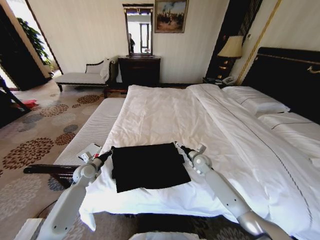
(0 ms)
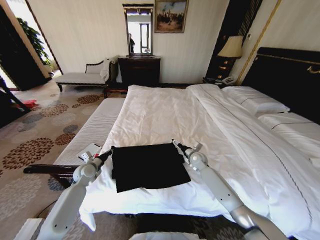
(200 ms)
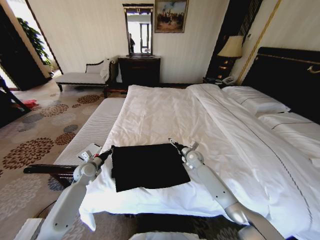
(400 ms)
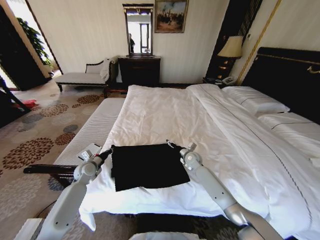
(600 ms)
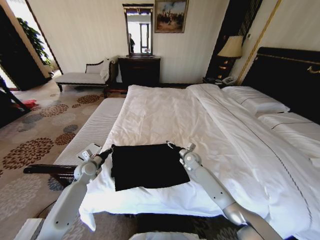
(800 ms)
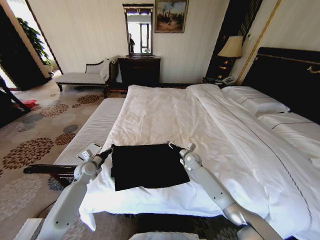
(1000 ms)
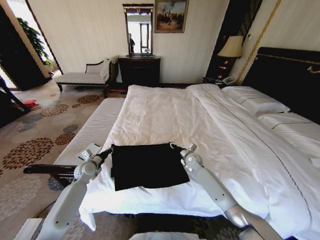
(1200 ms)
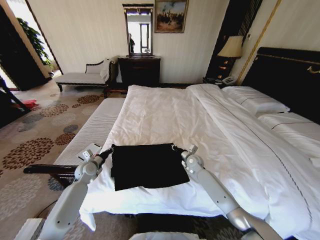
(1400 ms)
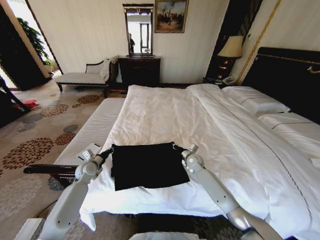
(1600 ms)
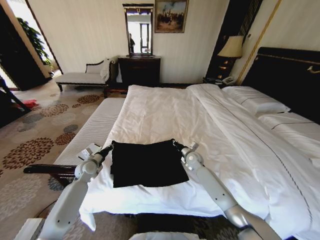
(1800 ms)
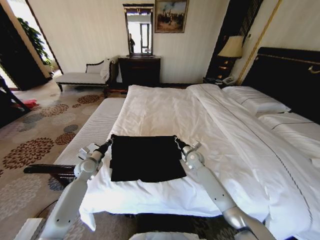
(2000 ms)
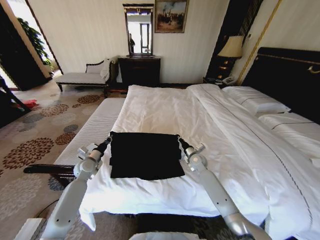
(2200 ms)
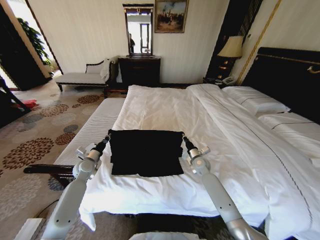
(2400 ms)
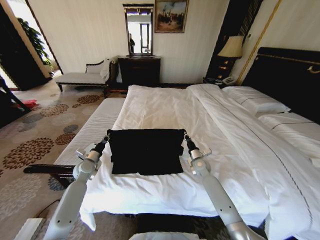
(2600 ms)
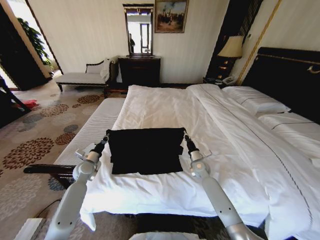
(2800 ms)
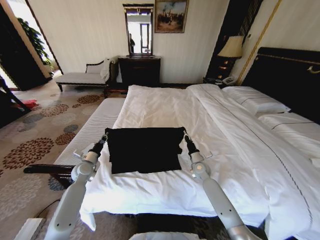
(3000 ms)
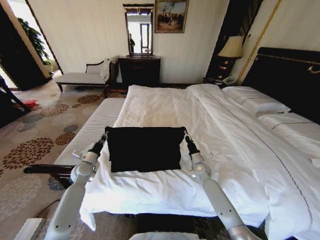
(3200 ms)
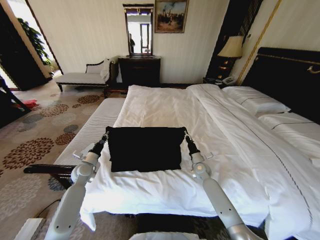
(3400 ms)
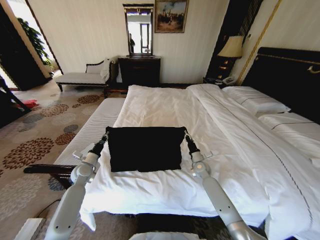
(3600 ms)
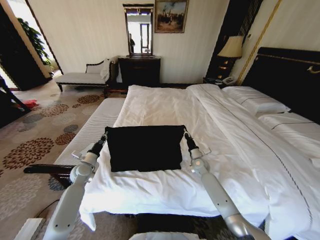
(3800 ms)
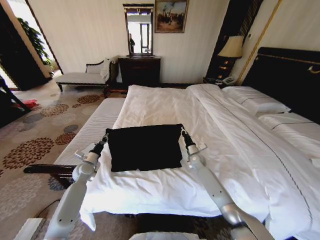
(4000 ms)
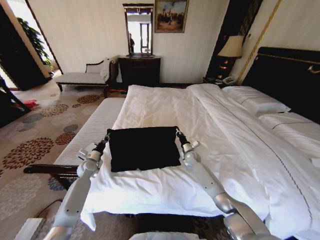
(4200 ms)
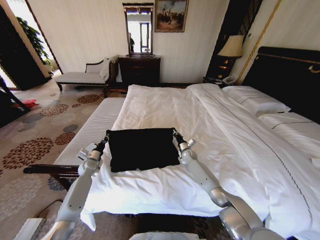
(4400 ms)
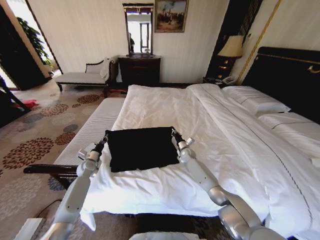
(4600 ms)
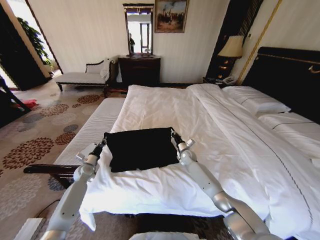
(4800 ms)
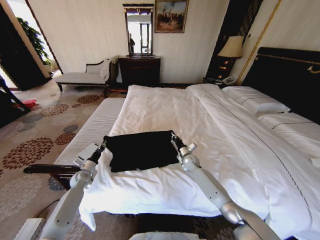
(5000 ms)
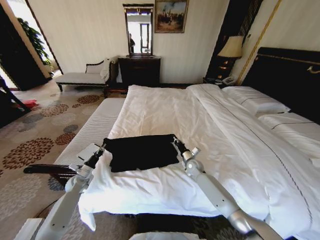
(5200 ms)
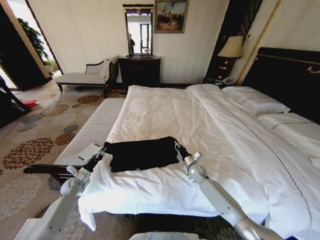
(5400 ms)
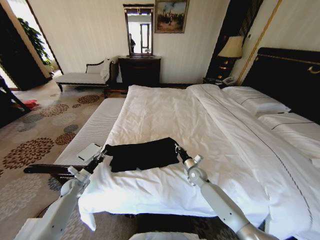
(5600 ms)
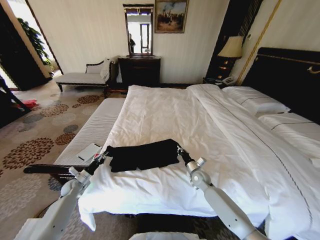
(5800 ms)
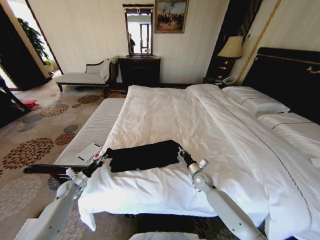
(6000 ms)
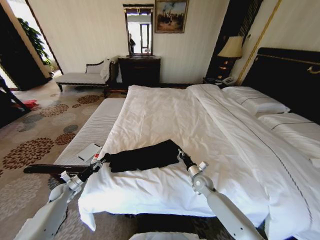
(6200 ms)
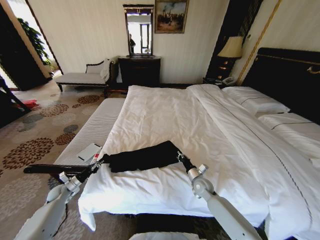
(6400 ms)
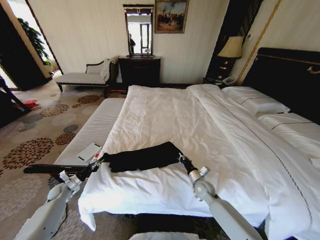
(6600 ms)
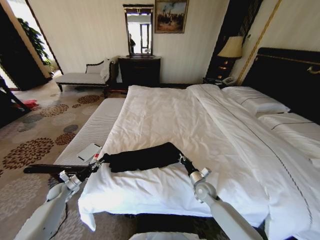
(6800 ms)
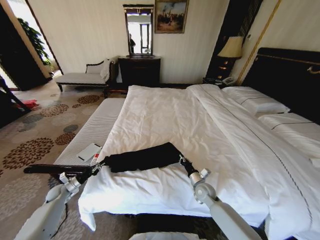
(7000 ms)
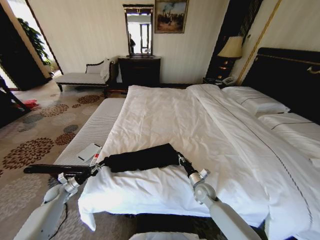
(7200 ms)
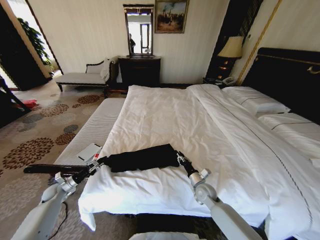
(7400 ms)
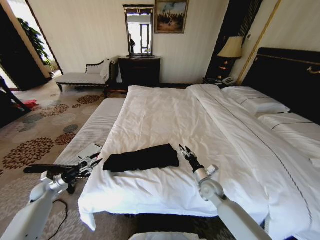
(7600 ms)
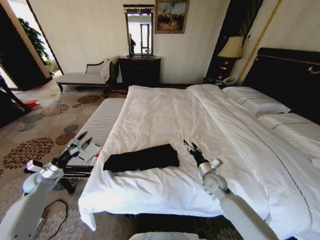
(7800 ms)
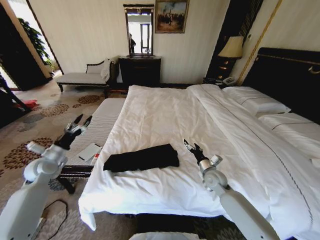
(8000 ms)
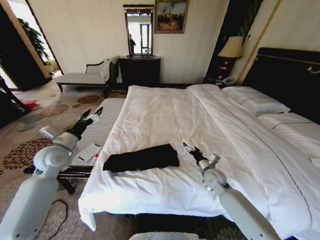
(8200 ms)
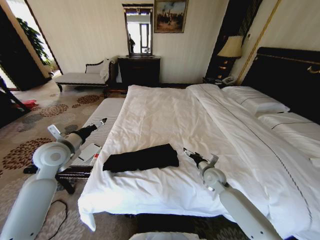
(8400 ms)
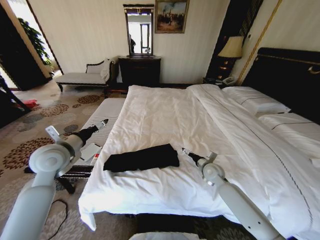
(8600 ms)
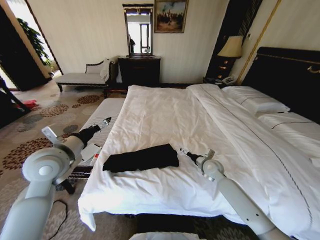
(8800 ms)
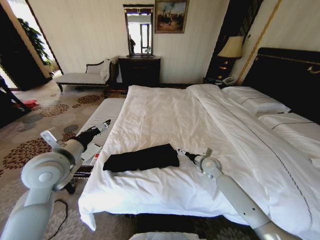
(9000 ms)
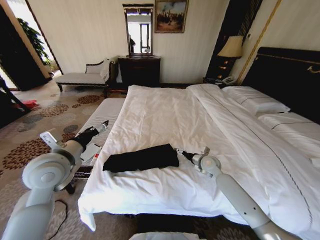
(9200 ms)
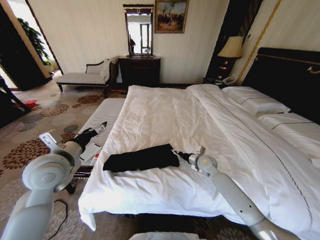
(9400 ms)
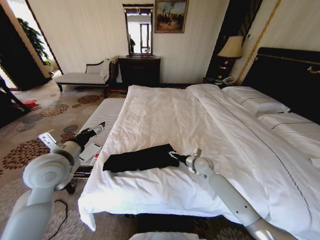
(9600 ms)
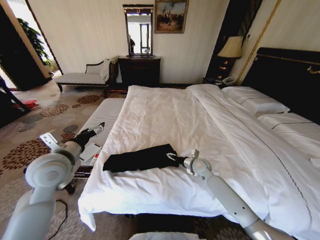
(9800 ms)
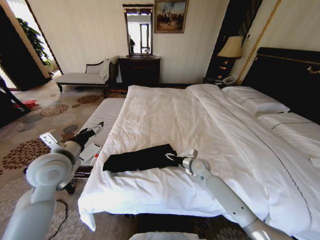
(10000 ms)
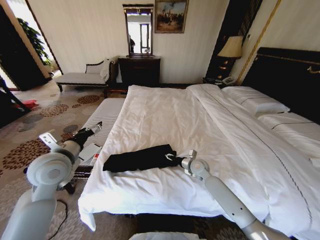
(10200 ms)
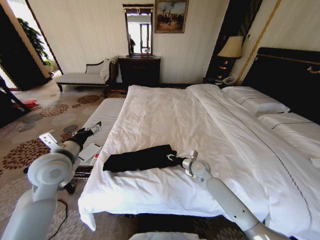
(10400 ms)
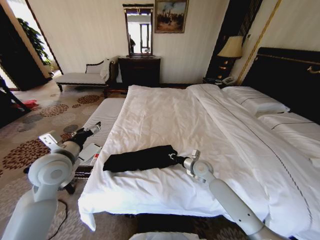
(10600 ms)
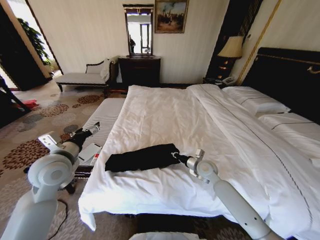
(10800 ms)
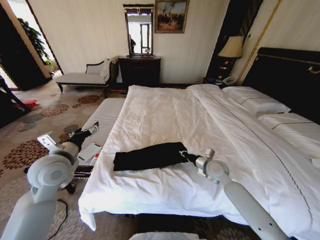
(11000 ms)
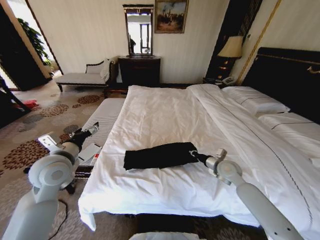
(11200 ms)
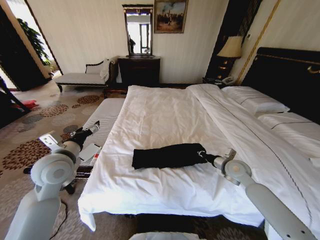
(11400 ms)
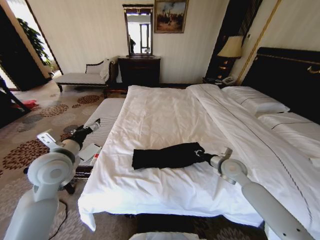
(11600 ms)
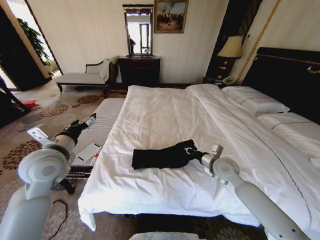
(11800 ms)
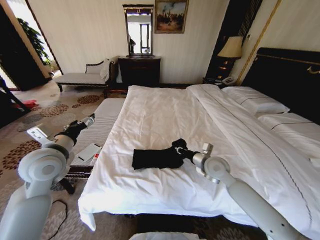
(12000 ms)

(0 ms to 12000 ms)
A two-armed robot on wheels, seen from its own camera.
Task of the whole recording: Fold the clothes on the bed.
0 ms - 1600 ms: The right gripper closes up.
1600 ms - 3000 ms: The right gripper ends up some 5 cm from where it was.
3000 ms - 4400 ms: The right gripper is displaced forward by about 10 cm. Meanwhile the left gripper travels downward by some 5 cm.
4400 ms - 6000 ms: The right gripper is displaced backward by roughly 15 cm; the left gripper heads to the left, backward and downward, covering about 15 cm.
6000 ms - 7600 ms: The right gripper goes roughly 5 cm backward, and opens up, while the left gripper is displaced to the left and upward by approximately 10 cm, and opens.
7600 ms - 9000 ms: The left gripper goes about 40 cm upward and to the right, and opens; the right gripper goes roughly 10 cm forward, and opens up.
9000 ms - 10400 ms: The right gripper travels to the left by some 5 cm, and closes its fingers.
10400 ms - 12000 ms: The right gripper heads upward and backward, covering some 10 cm, and reaches about 10 cm to the right, then returns.

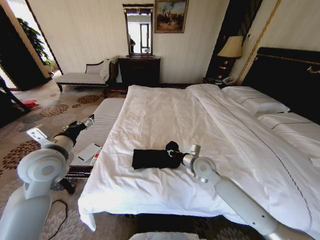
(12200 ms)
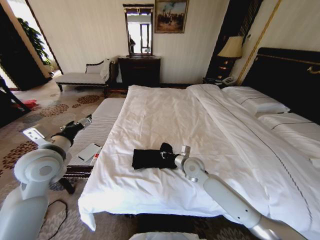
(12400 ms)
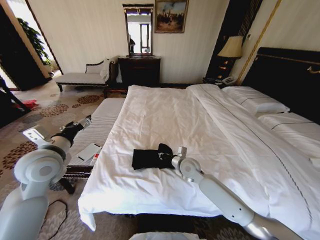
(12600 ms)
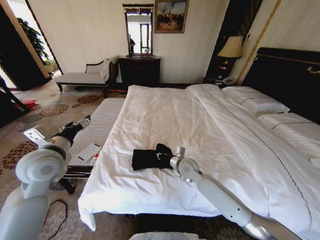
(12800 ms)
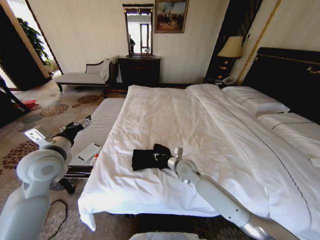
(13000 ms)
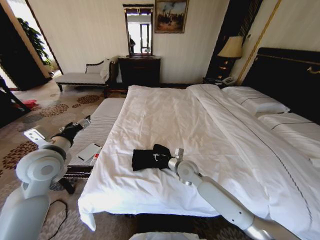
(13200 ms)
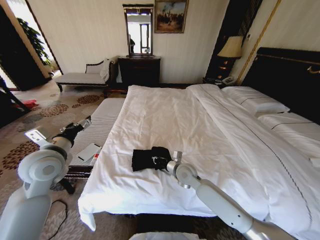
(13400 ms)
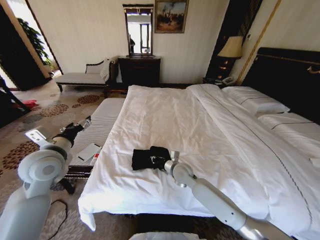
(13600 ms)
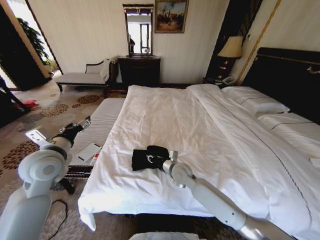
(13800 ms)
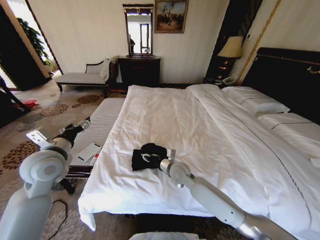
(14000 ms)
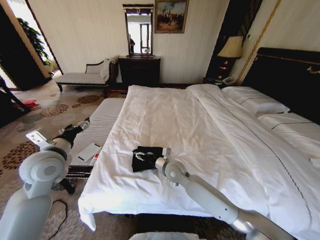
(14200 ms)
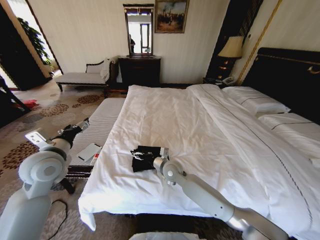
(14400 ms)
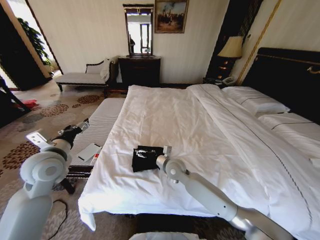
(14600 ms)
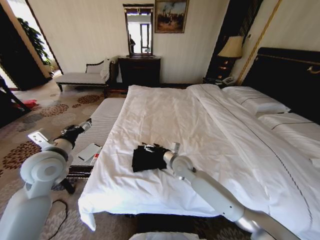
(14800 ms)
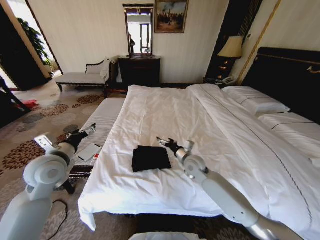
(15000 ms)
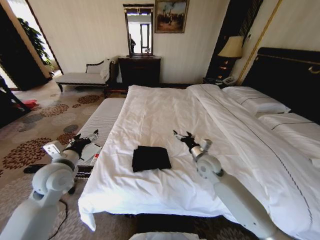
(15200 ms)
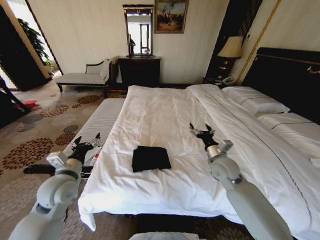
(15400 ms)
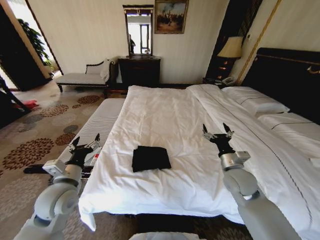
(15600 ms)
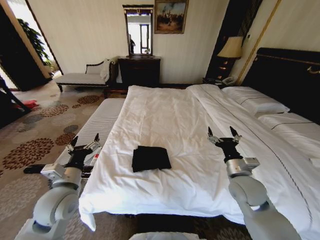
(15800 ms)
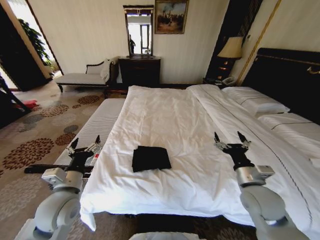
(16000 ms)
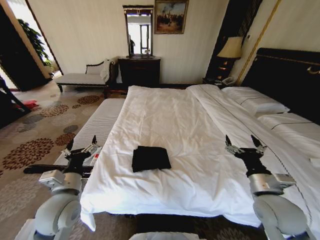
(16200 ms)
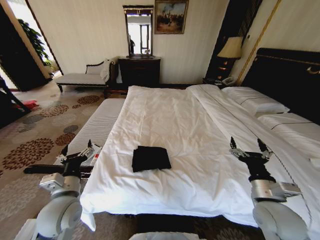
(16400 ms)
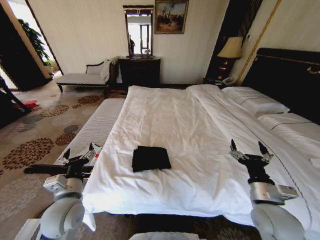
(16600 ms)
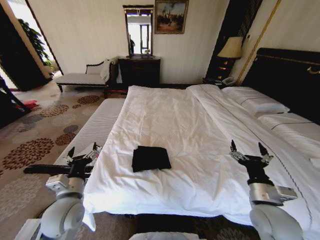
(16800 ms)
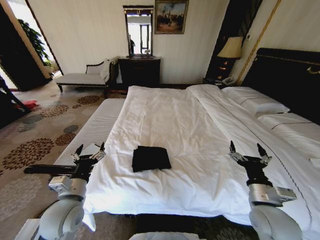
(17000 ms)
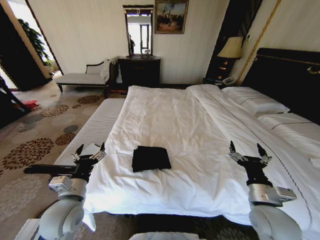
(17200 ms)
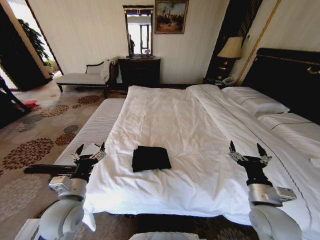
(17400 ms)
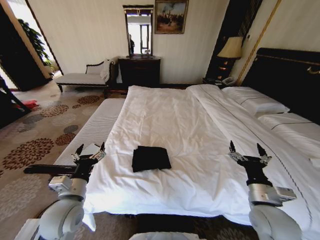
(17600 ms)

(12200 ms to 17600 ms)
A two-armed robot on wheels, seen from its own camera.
Task of the whole recording: Fold the clothes on the bed.
12200 ms - 13600 ms: The right gripper moves to the left and downward, some 10 cm.
13600 ms - 15000 ms: The right gripper goes some 5 cm to the right, and opens.
15000 ms - 16200 ms: The left gripper moves backward, to the right and downward, about 15 cm, while the right gripper travels backward and to the right by about 25 cm.
16200 ms - 17600 ms: The grippers make only small movements.

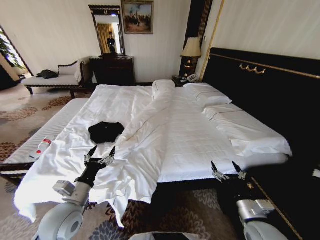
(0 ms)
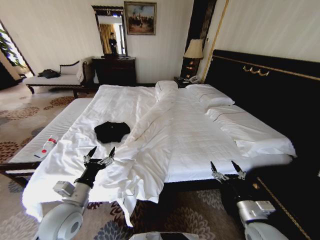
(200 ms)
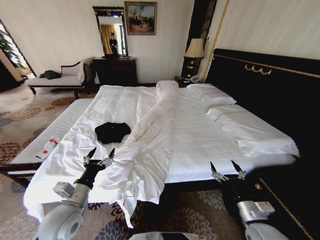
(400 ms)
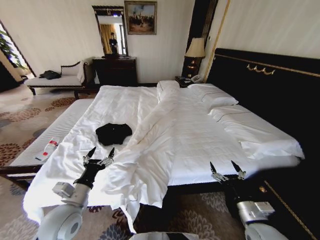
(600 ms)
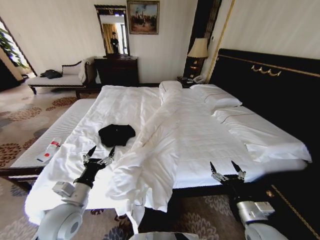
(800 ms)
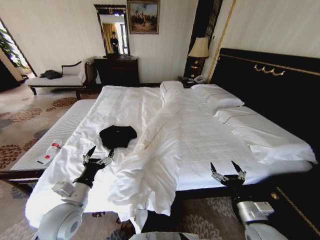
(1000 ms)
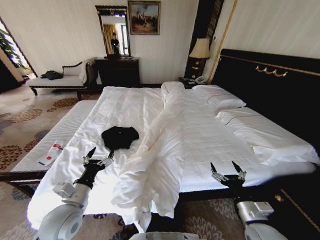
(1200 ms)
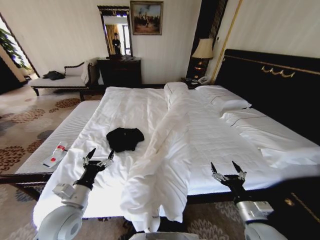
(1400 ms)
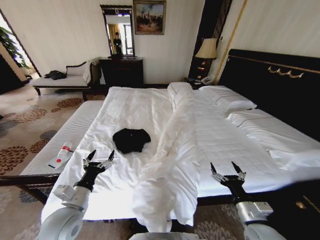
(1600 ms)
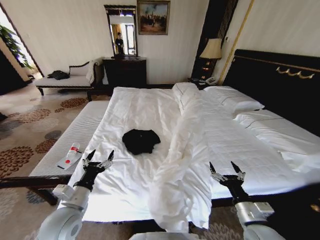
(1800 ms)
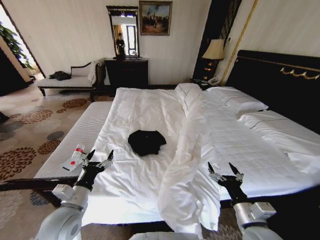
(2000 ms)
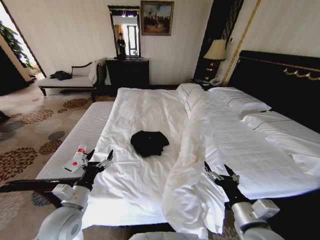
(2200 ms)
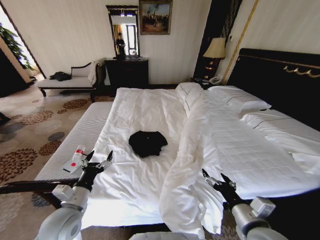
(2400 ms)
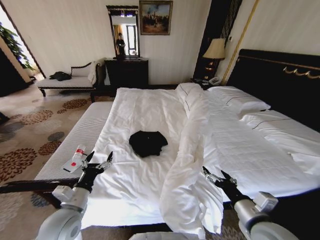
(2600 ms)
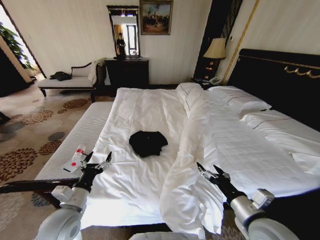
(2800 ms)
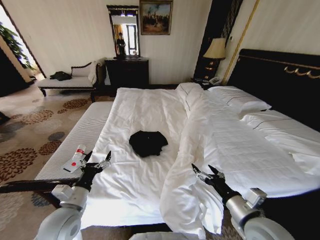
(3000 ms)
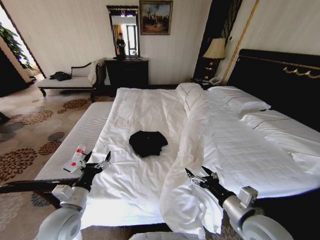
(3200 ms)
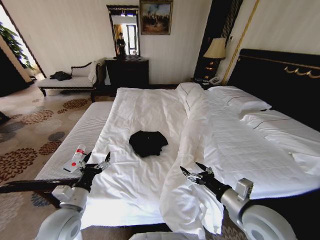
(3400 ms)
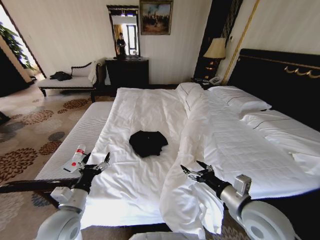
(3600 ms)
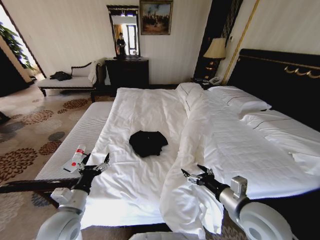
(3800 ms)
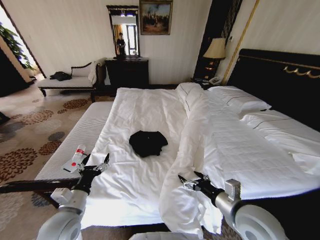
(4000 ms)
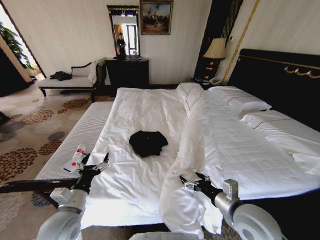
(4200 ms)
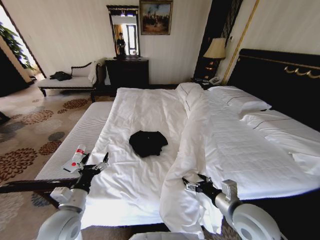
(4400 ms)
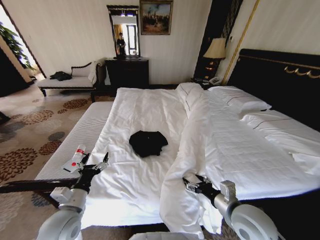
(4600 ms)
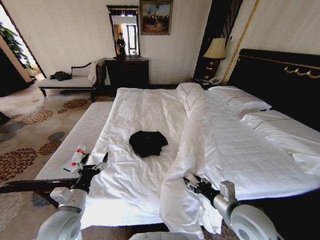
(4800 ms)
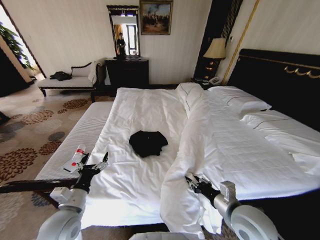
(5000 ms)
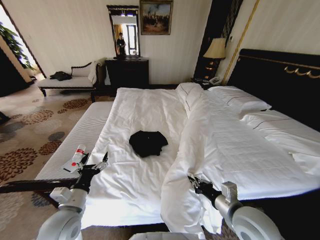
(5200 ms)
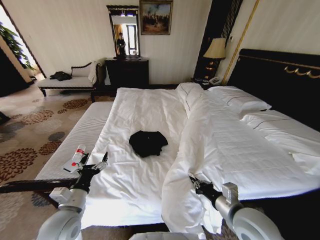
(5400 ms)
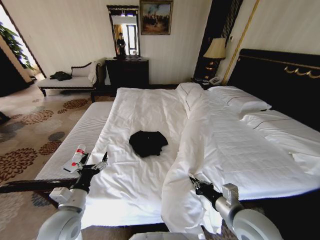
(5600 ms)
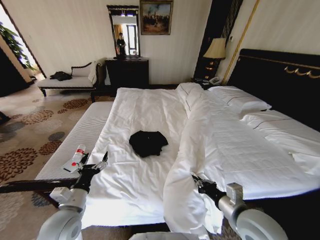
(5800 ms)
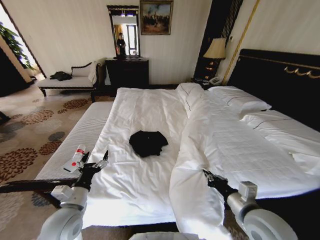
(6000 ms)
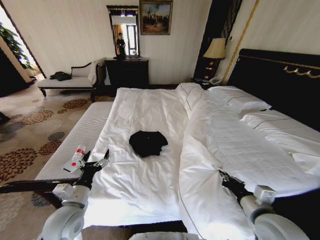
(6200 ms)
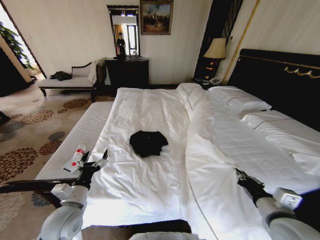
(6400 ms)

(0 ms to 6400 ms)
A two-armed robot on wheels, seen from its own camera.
Task of the whole recording: Fold the clothes on the bed.
1600 ms - 3200 ms: The right gripper travels upward and to the left by about 10 cm.
3200 ms - 4800 ms: The right gripper closes.
4800 ms - 6400 ms: The right gripper travels to the right by approximately 10 cm, and closes up.
